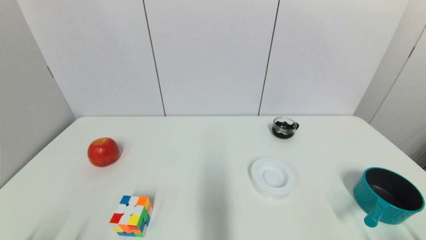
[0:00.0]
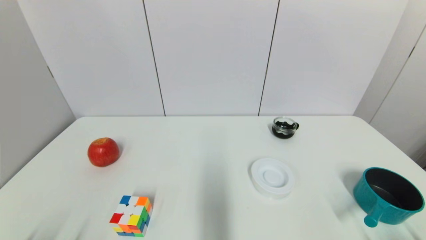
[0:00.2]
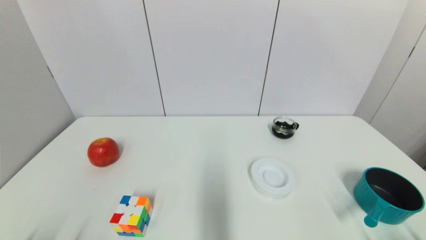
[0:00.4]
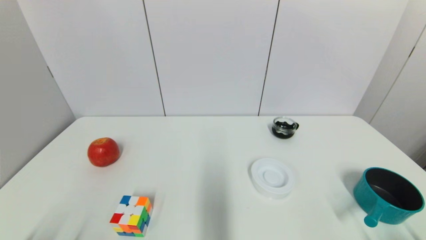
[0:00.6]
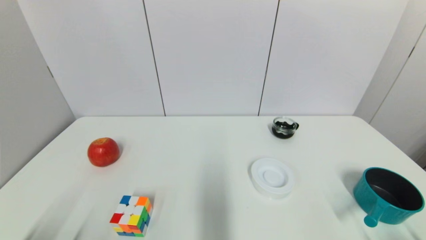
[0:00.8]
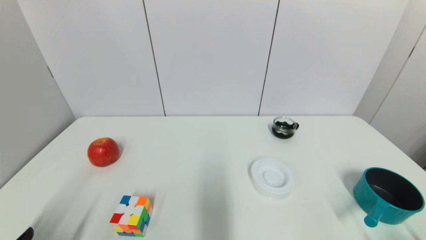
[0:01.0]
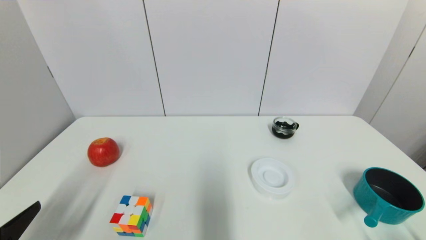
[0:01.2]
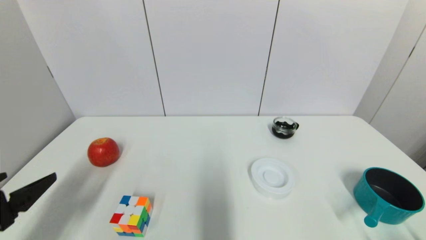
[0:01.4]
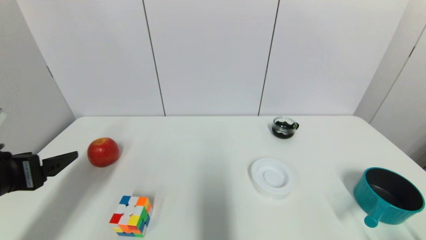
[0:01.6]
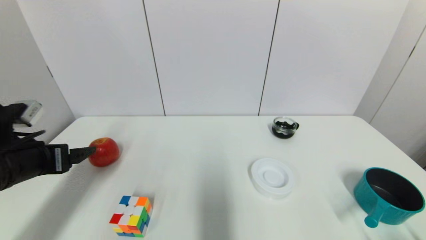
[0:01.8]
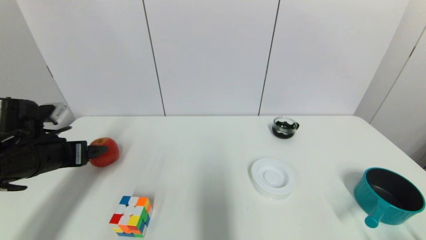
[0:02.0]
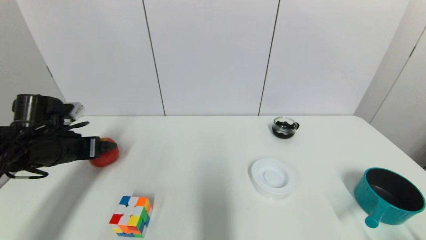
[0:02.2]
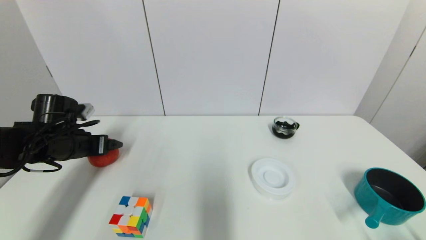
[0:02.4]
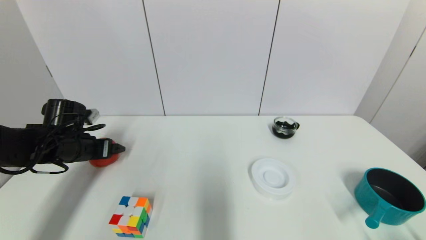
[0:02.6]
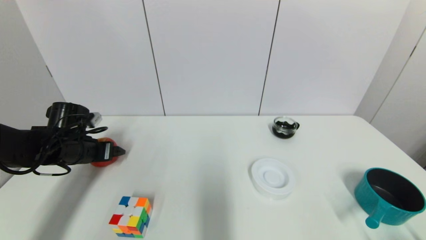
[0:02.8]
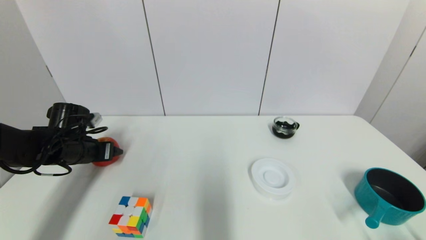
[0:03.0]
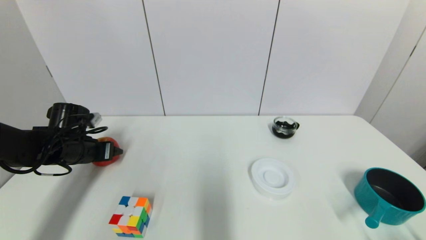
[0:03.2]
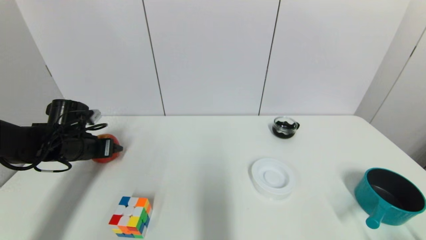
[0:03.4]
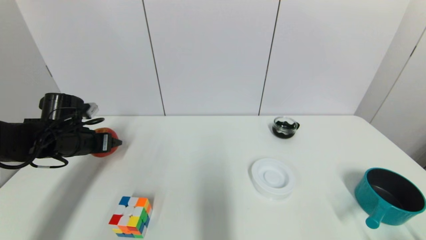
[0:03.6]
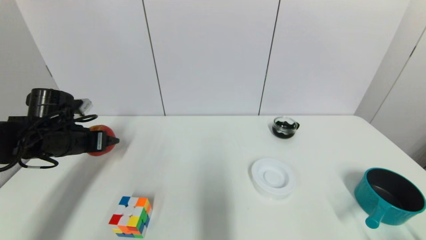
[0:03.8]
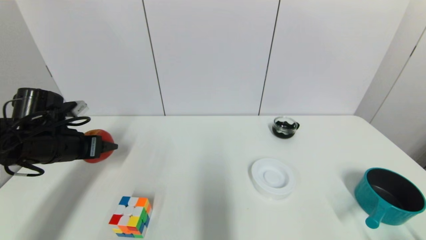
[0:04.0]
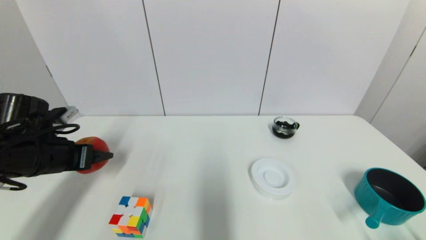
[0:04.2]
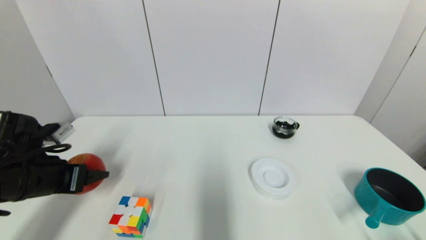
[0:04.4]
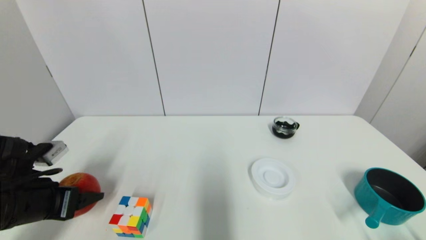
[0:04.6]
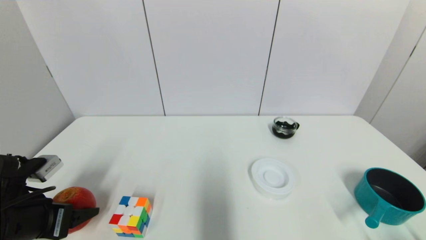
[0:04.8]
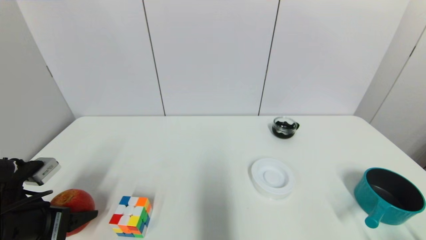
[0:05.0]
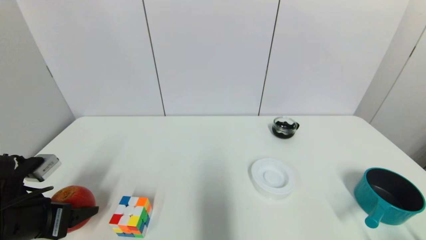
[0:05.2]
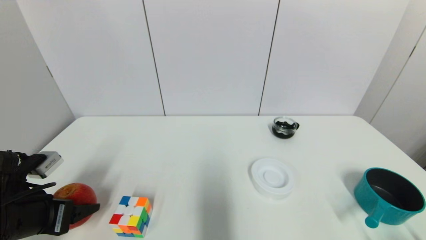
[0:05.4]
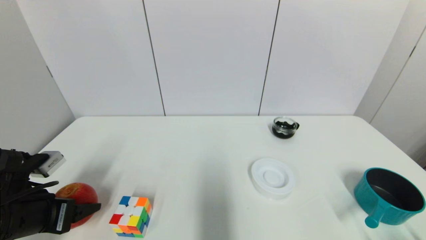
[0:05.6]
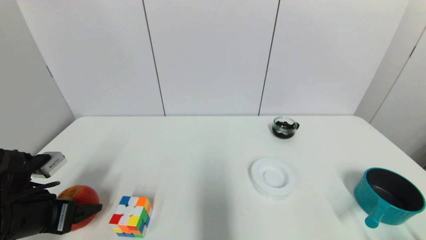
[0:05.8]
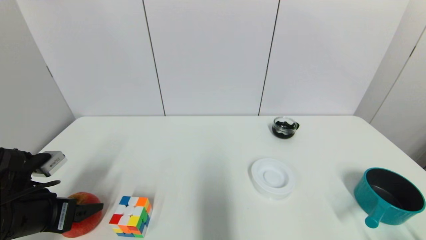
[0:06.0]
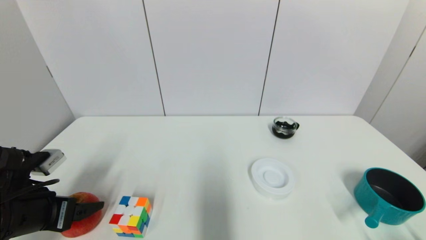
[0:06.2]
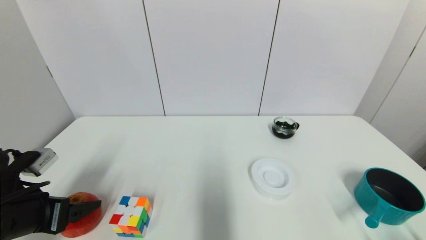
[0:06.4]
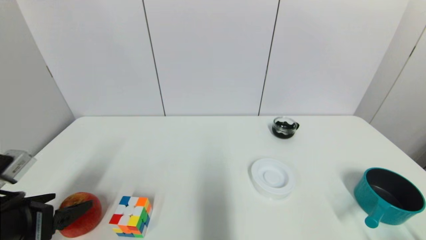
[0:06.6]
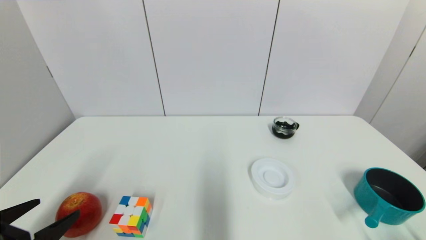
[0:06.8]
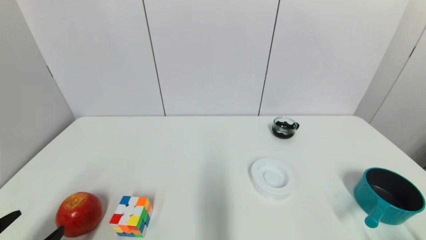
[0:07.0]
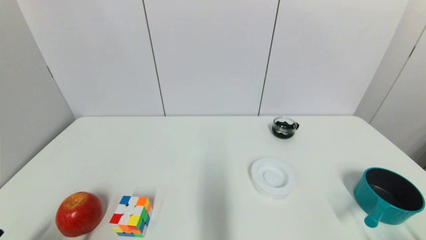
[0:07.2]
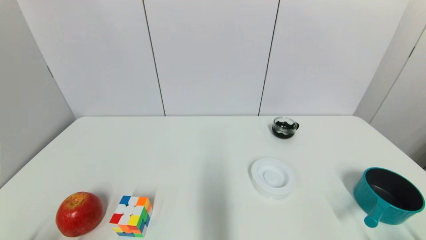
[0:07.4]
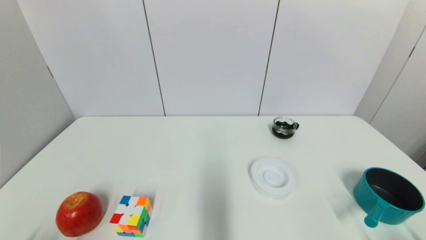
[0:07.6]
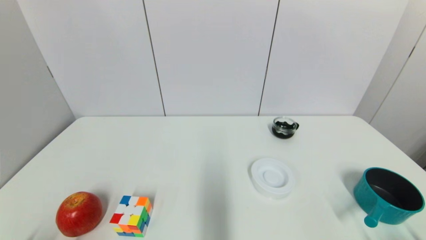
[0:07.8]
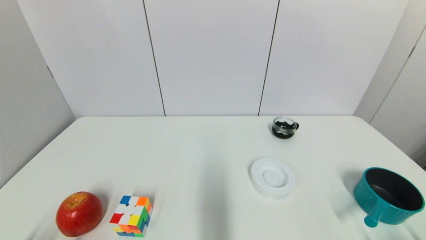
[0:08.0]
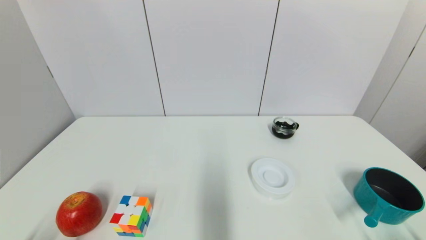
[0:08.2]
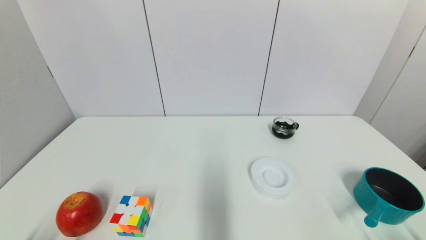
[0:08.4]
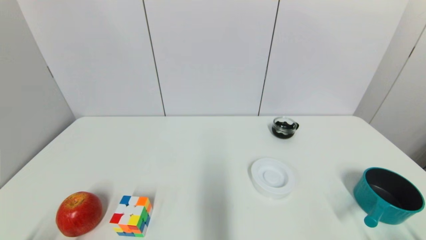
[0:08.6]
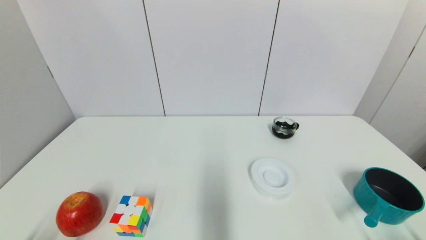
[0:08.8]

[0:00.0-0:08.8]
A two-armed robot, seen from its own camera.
Task of the whole recording: put the apple in the designated position.
Step, 0:01.0 to 0:03.0: Grasp the apple with left gripper.
Step, 0:03.4 to 0:06.8: Place the apple on the table with left gripper.
0:00.0 to 0:01.4: The left gripper shifts approximately 15 cm upward and forward.
0:01.4 to 0:03.0: The left gripper shifts about 20 cm forward, and closes its fingers.
0:03.0 to 0:04.4: The left gripper heads backward, covering approximately 15 cm.
0:04.4 to 0:05.8: There are only small adjustments of the grippers.
0:05.8 to 0:07.4: The left gripper travels backward and downward by about 20 cm, and opens up.
